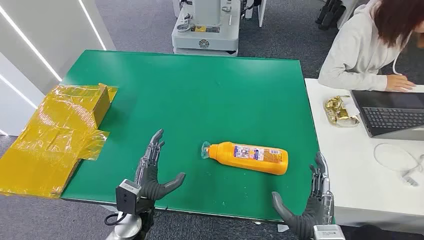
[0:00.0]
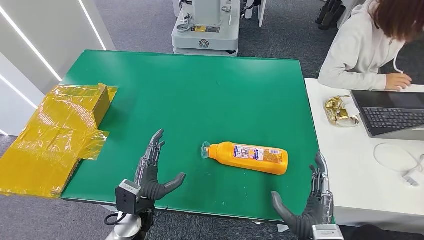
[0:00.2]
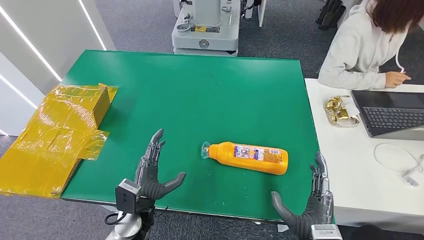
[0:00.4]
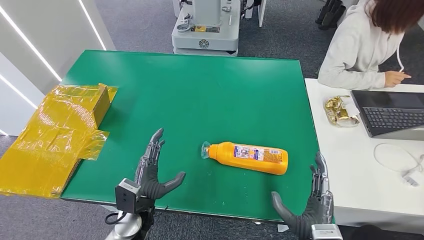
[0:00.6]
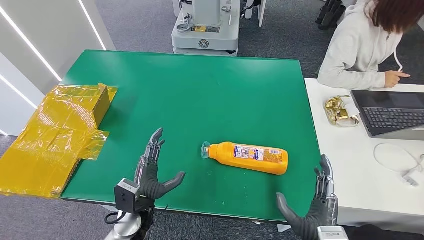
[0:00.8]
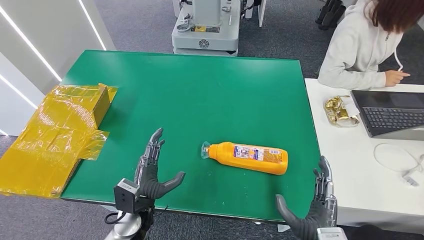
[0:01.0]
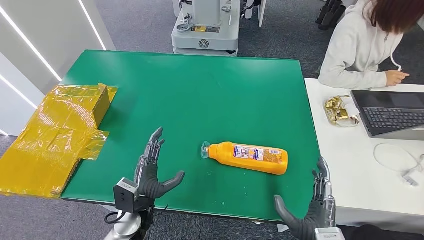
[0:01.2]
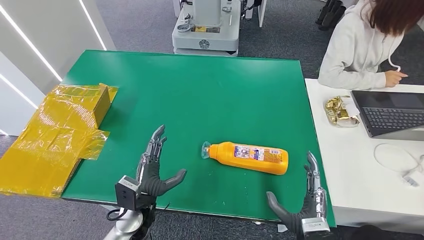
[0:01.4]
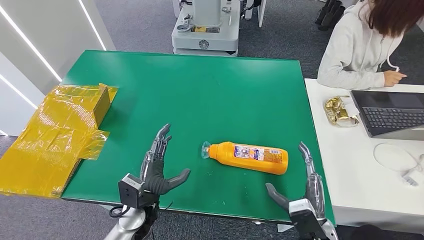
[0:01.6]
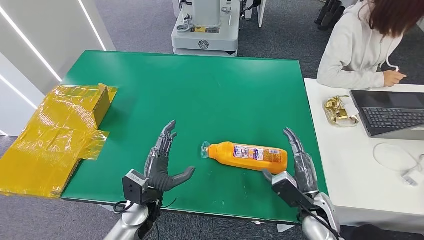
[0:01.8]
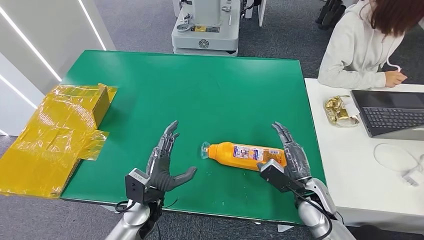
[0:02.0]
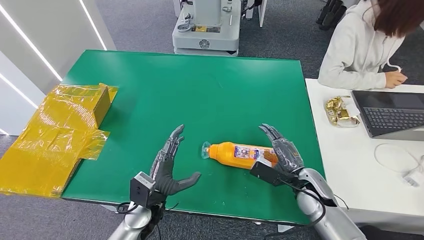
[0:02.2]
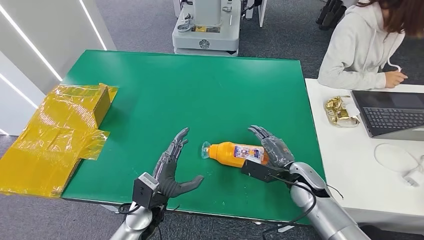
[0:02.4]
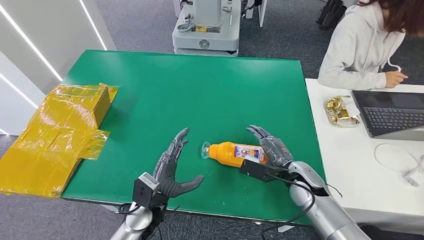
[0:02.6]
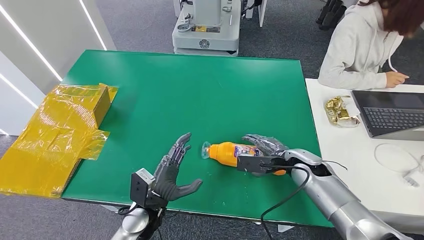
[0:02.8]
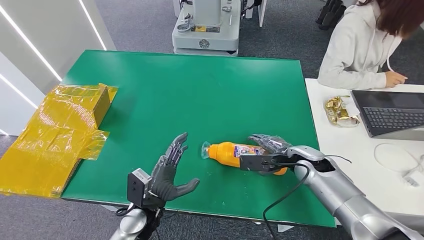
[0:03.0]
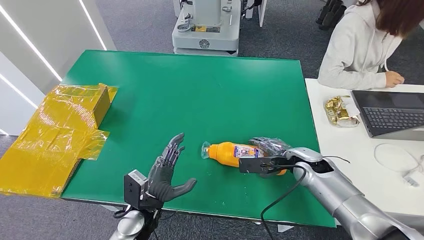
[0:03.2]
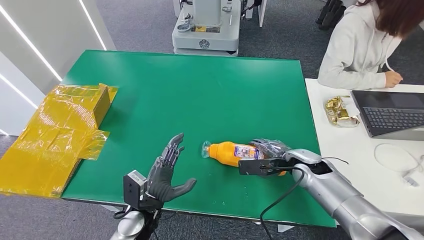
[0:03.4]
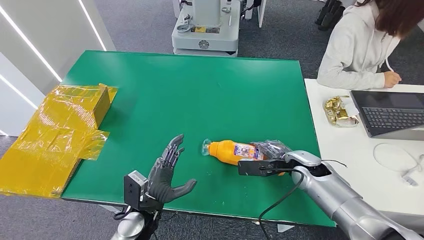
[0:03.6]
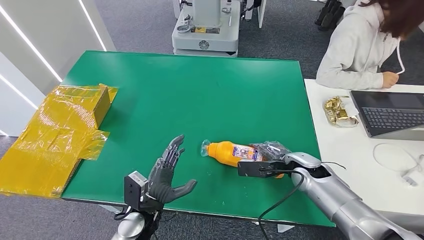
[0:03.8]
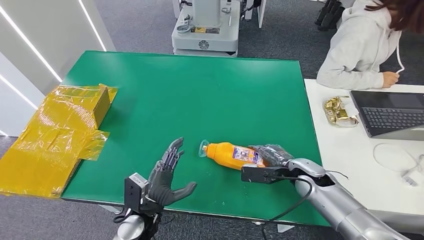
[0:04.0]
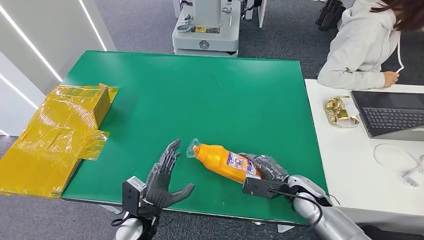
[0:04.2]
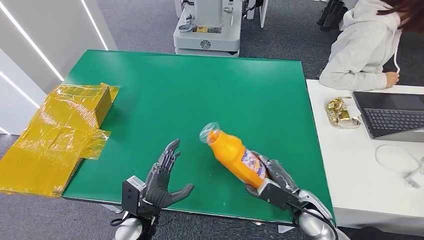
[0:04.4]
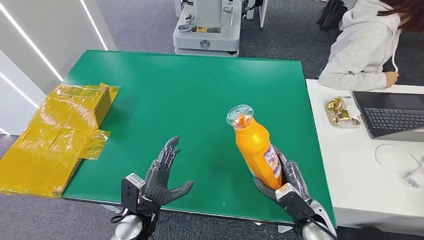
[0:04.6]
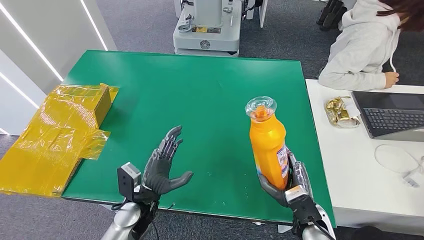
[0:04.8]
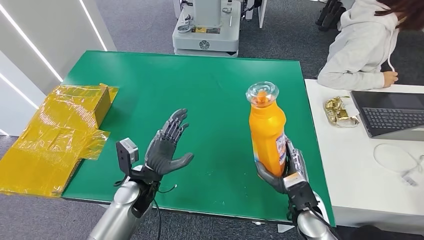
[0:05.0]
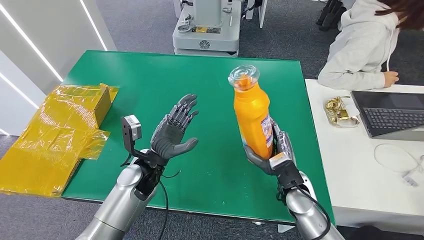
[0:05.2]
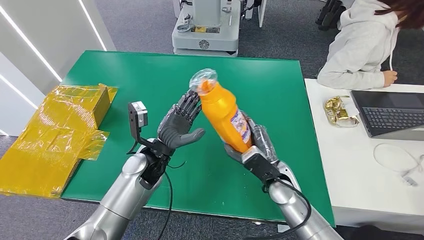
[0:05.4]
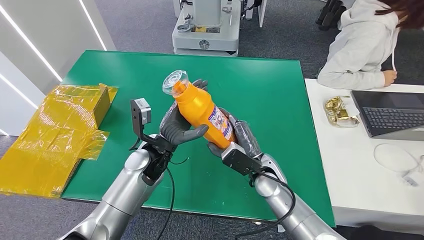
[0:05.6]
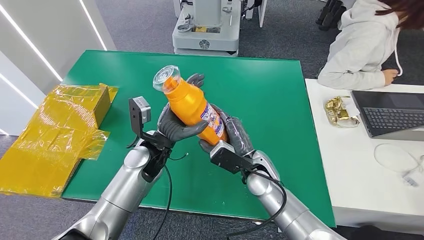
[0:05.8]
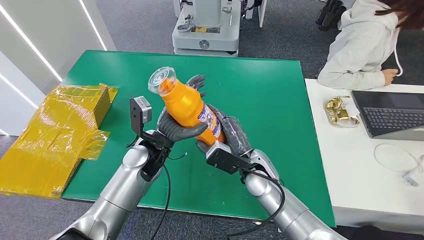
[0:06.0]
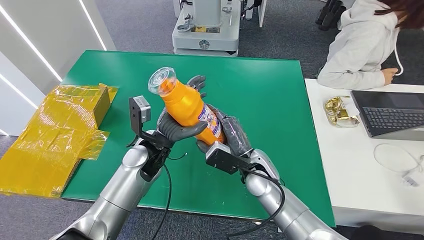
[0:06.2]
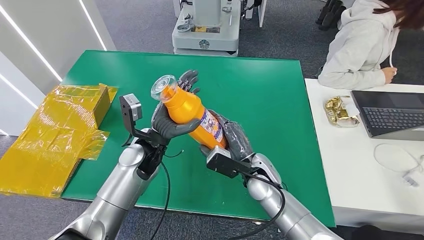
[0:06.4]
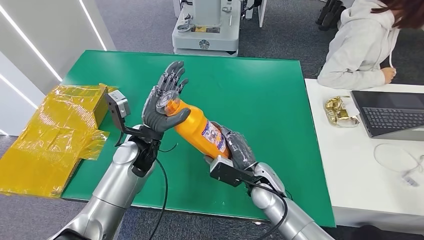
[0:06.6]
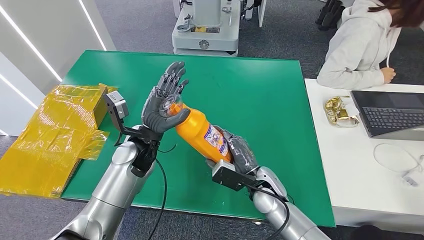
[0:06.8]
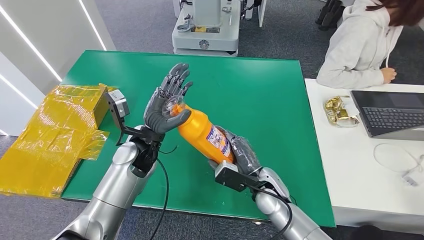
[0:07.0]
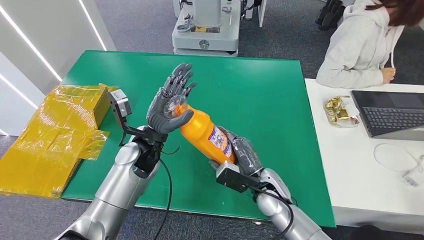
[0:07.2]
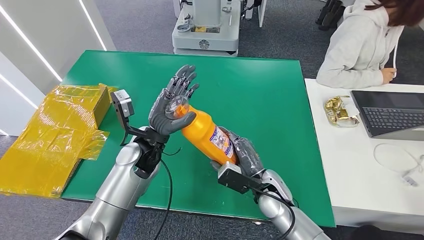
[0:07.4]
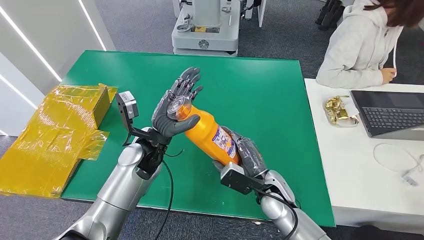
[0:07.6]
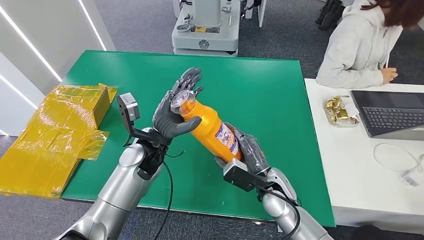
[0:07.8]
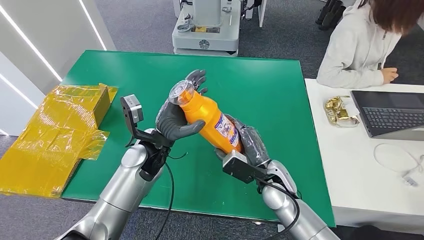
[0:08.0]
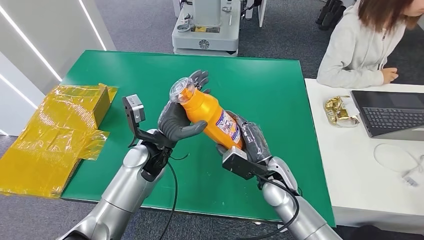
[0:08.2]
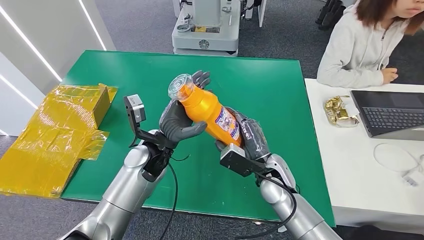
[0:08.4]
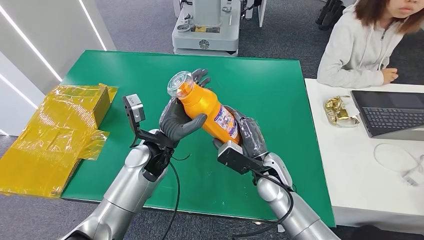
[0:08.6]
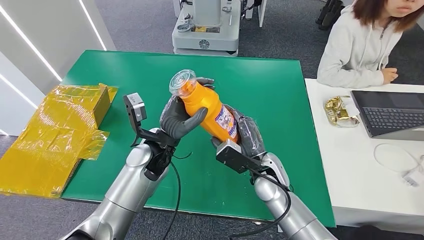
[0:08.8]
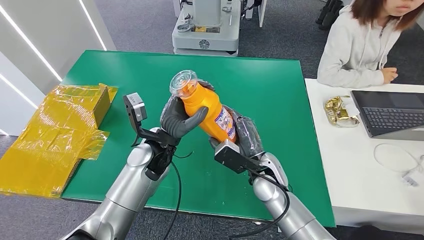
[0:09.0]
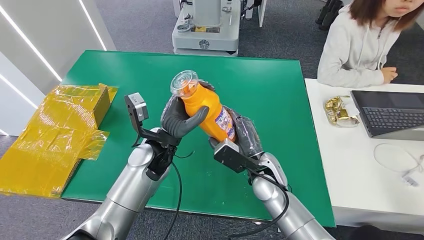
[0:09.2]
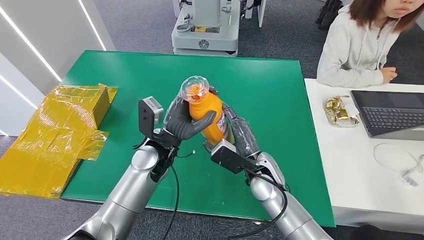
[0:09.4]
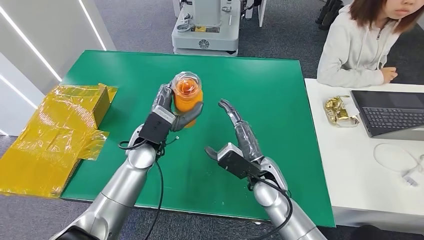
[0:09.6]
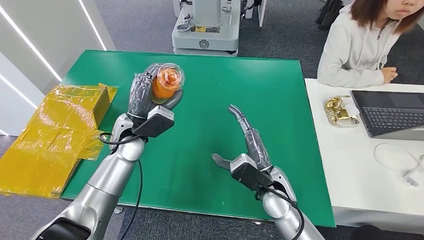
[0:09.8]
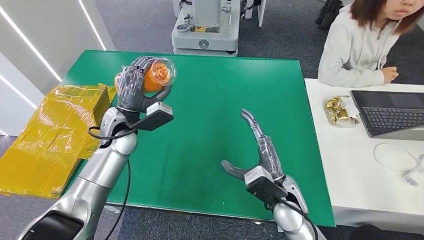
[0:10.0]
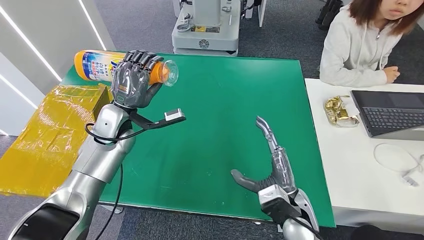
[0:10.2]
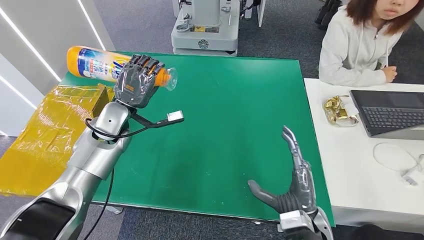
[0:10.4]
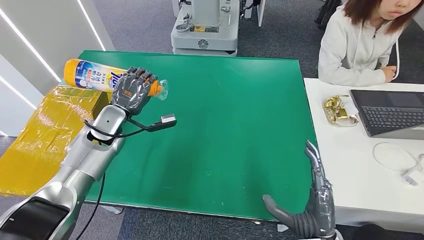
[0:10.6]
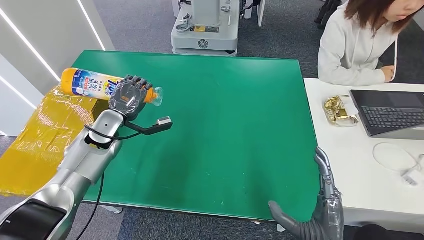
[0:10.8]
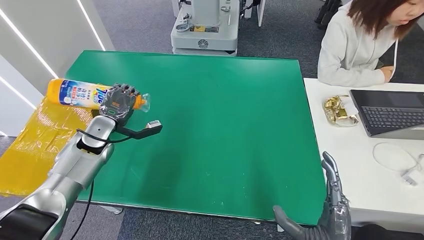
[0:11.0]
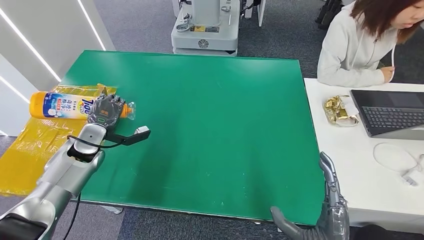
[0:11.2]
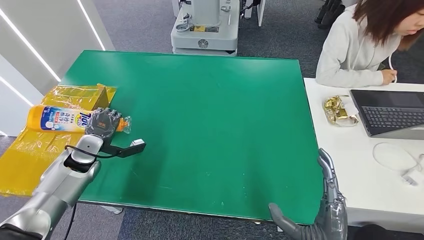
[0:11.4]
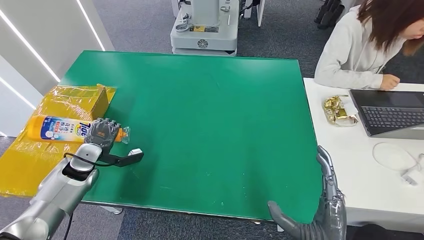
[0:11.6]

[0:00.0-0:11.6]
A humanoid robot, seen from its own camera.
Step, 0.0 to 4.6 s: Pick up the bottle from the table.
1.4 to 2.8 s: The right hand moves forward, about 20 cm.
2.8 to 4.4 s: The right hand heads backward and downward, covering some 10 cm.
4.4 to 5.8 s: The right hand travels to the left, forward and upward by about 20 cm. Meanwhile the left hand moves forward and upward, some 20 cm.
5.8 to 7.2 s: The right hand shifts by roughly 5 cm.
7.2 to 8.8 s: The hands move only a little.

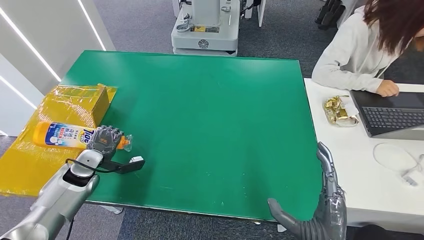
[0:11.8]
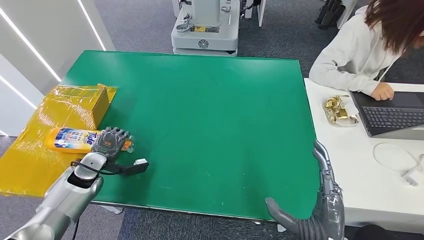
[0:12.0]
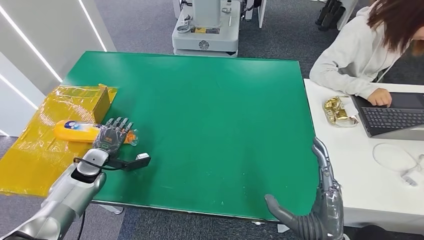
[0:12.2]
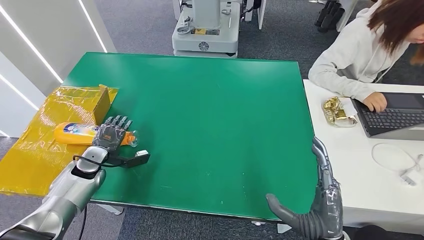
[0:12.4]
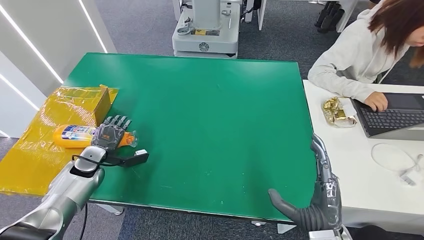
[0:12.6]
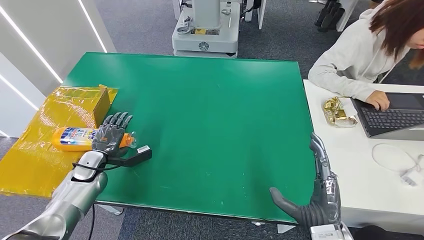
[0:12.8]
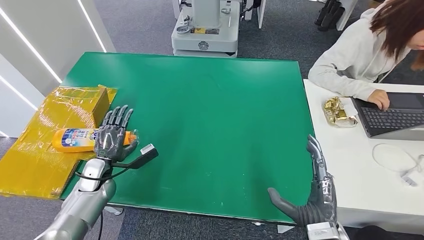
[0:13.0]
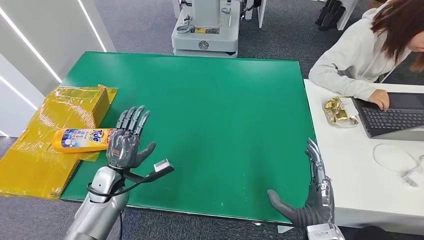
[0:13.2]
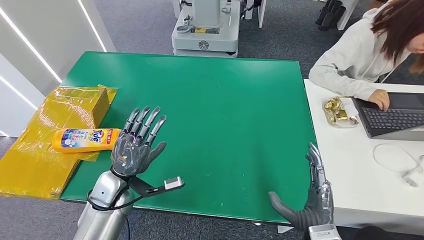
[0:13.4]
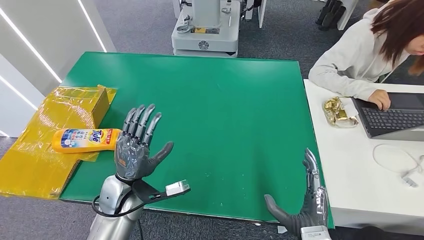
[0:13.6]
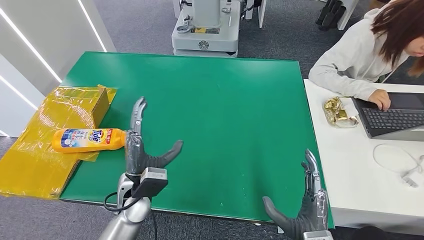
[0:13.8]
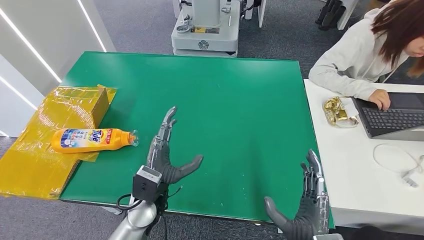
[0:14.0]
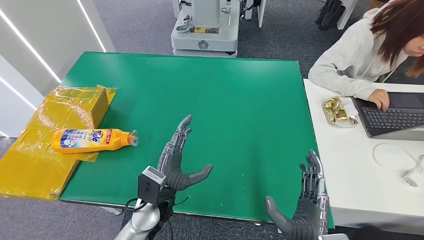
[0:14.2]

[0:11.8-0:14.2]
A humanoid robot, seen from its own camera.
Step, 11.8 to 14.2 s: Turn the bottle to the front side.
13.0 to 14.2 s: The left hand travels to the right by roughly 20 cm. Meanwhile the right hand is displaced to the left by roughly 5 cm.

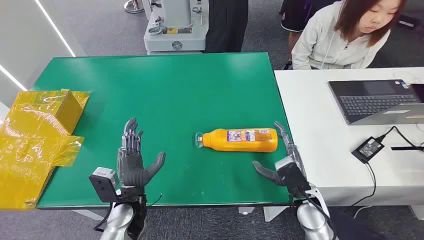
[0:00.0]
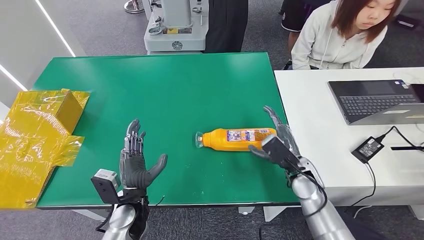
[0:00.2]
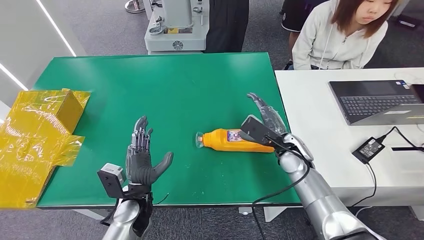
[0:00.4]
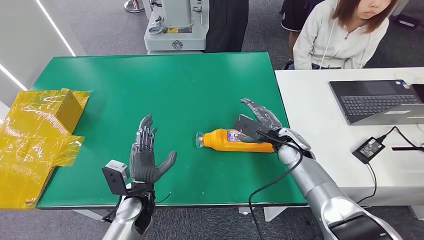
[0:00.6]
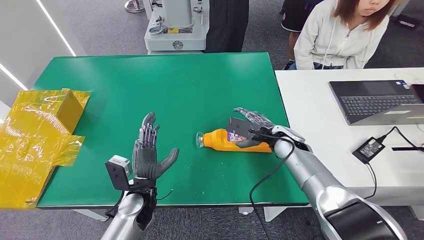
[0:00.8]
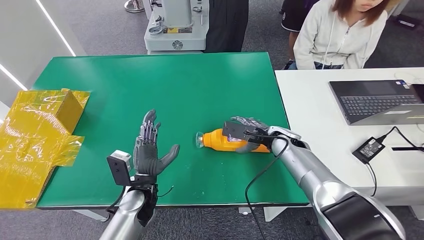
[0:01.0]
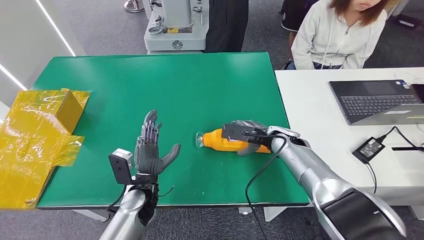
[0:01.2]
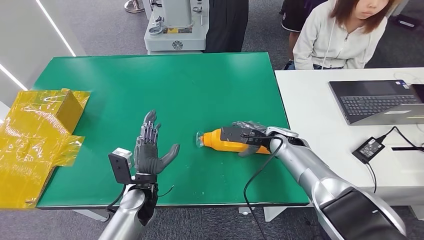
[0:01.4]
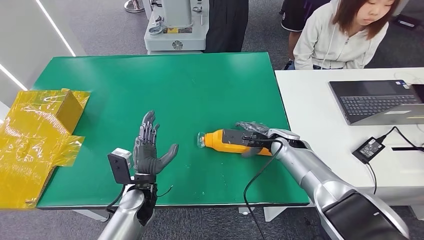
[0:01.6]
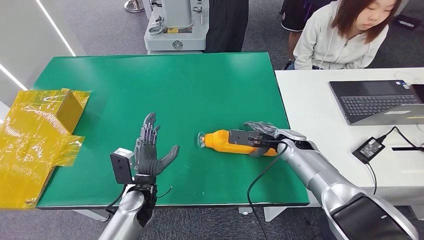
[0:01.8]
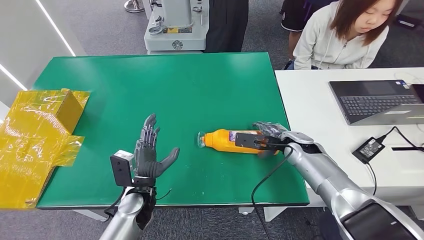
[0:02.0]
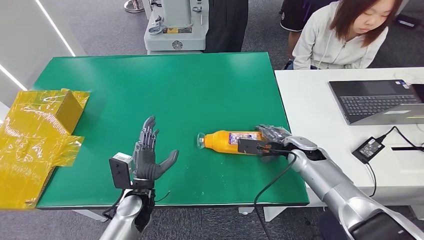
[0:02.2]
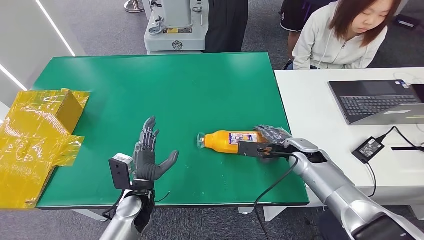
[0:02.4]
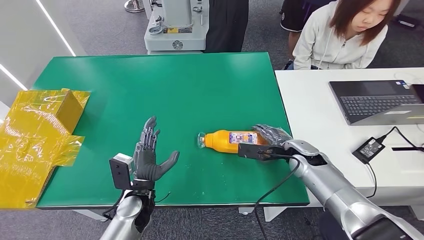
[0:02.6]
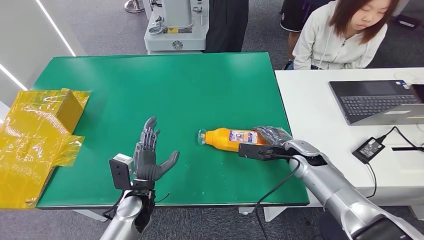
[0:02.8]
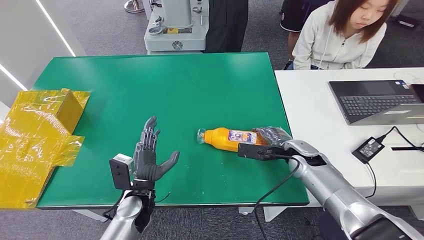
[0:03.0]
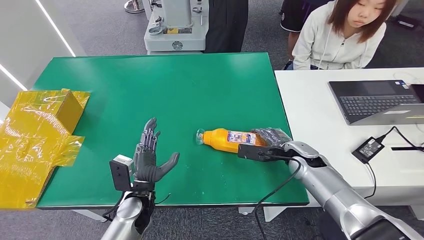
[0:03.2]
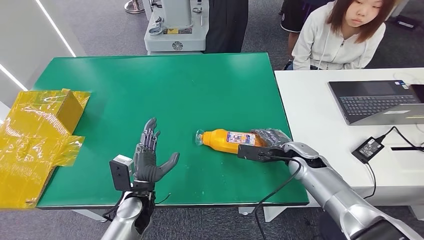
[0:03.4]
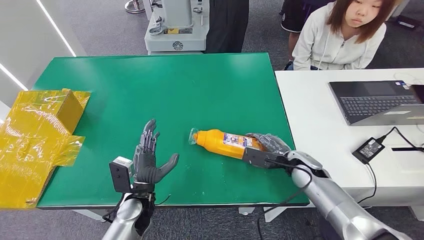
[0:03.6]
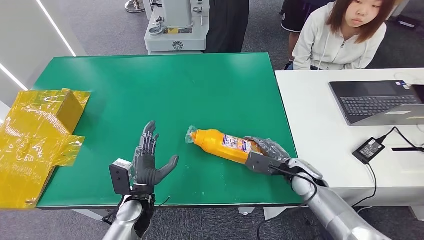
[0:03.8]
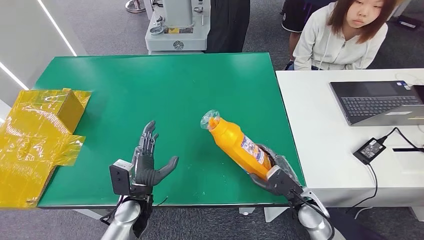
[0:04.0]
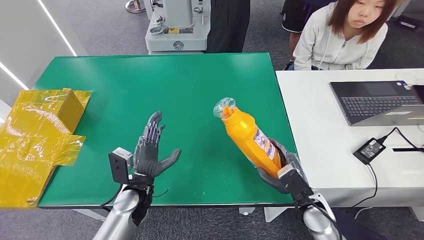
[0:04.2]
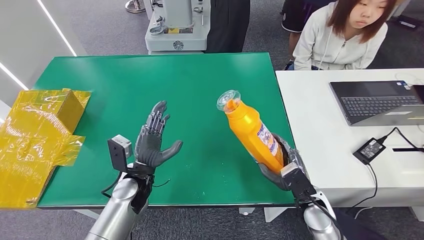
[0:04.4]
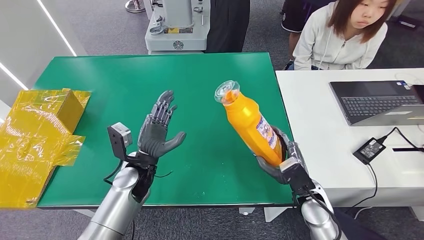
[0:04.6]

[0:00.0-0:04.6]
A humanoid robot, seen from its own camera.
1.6 to 3.0 s: The right hand ends up about 5 cm from where it was.
3.0 to 4.6 s: The right hand goes about 10 cm backward. Meanwhile the left hand is displaced forward and upward by some 10 cm.
